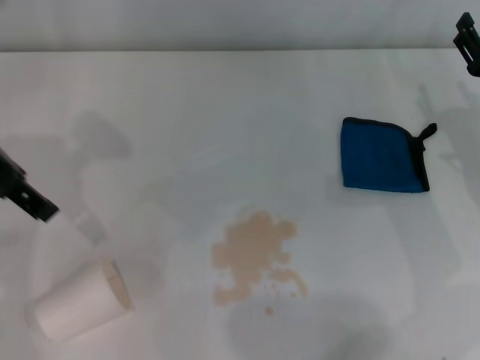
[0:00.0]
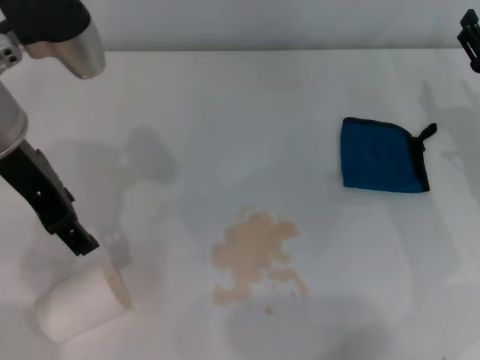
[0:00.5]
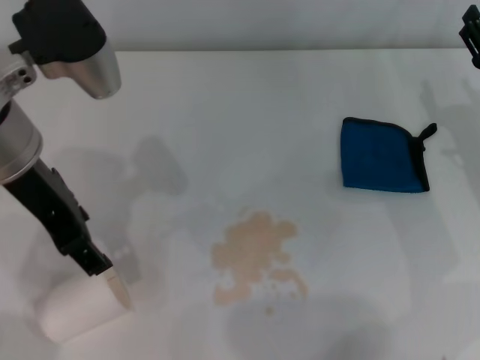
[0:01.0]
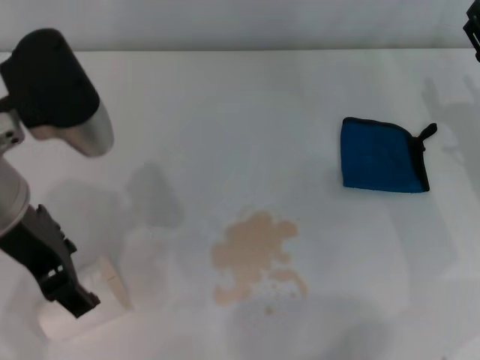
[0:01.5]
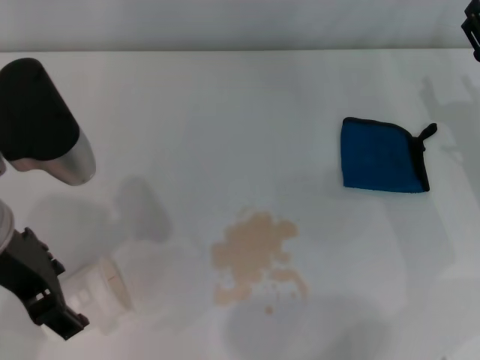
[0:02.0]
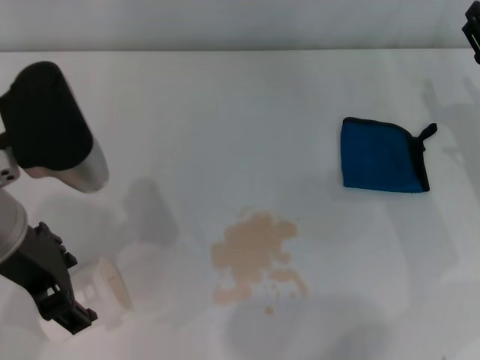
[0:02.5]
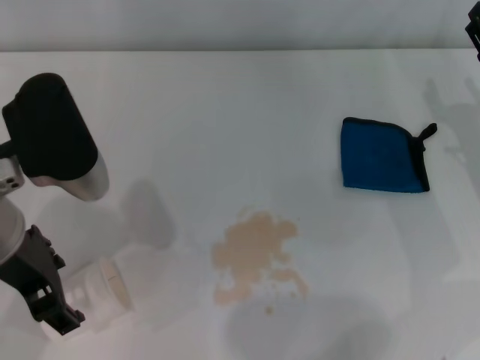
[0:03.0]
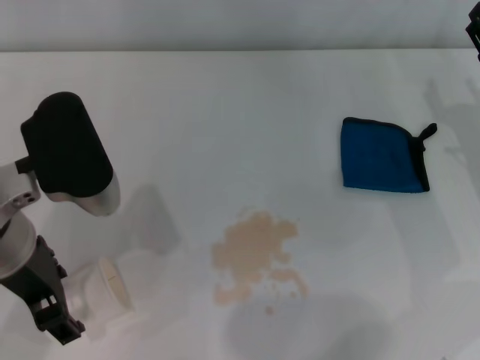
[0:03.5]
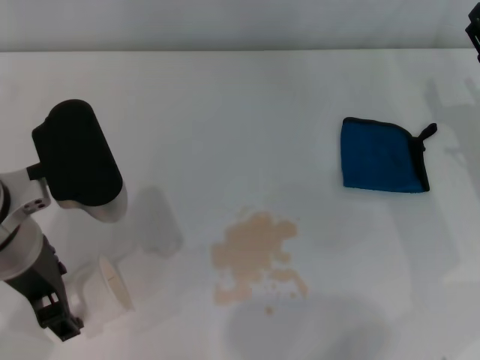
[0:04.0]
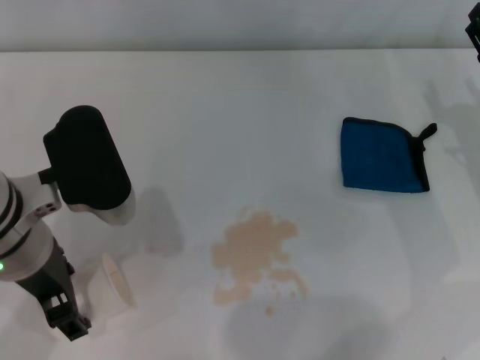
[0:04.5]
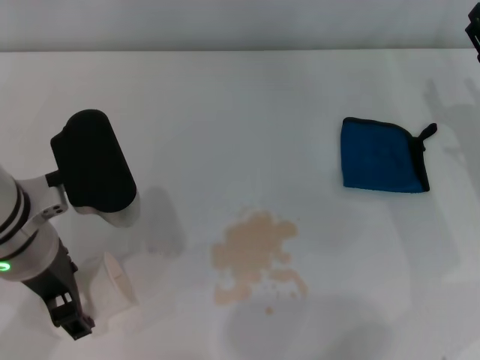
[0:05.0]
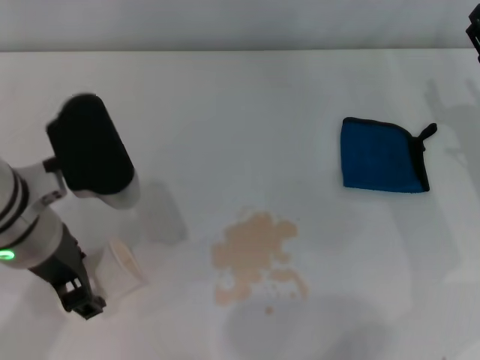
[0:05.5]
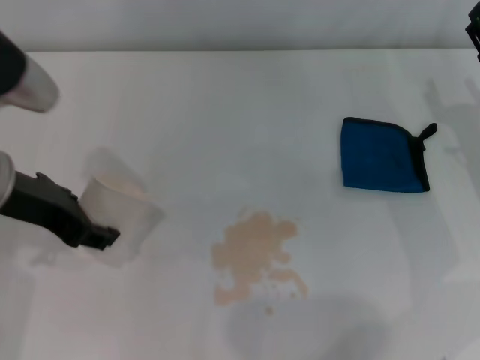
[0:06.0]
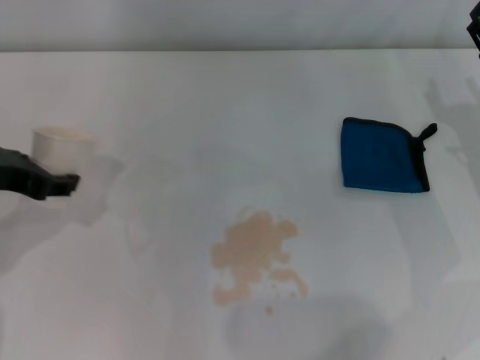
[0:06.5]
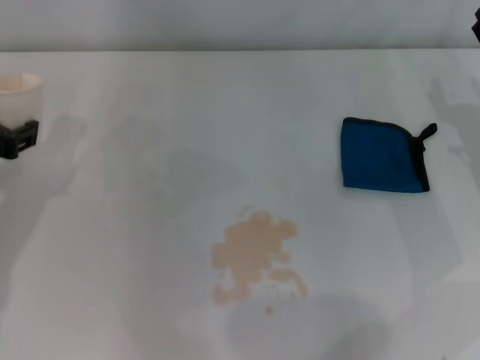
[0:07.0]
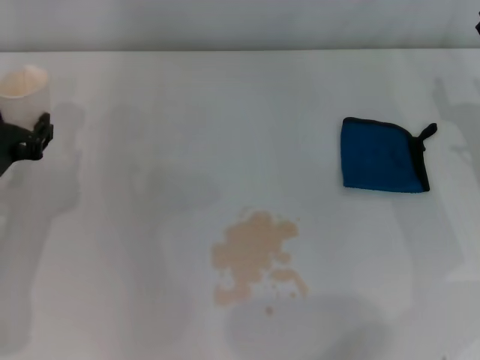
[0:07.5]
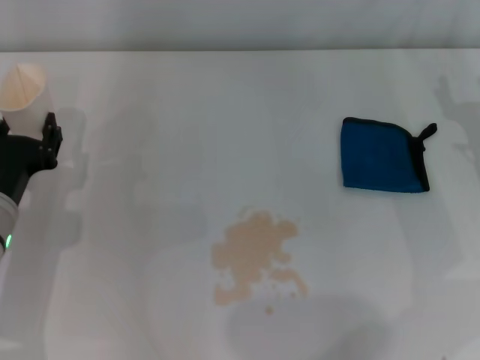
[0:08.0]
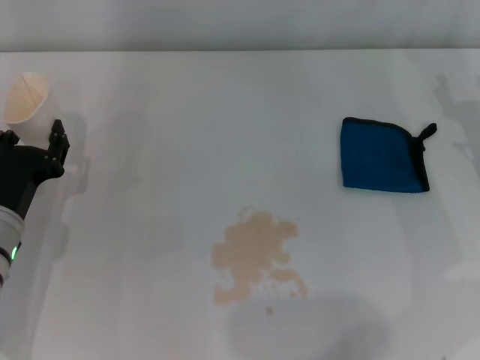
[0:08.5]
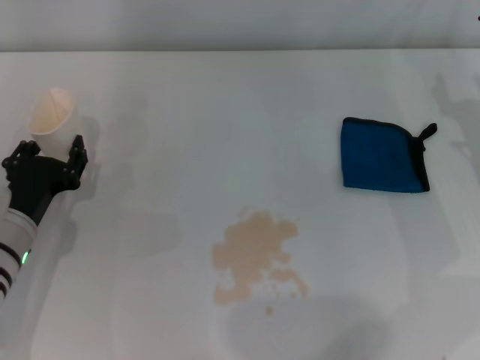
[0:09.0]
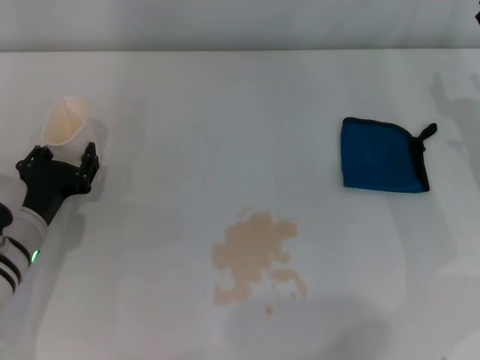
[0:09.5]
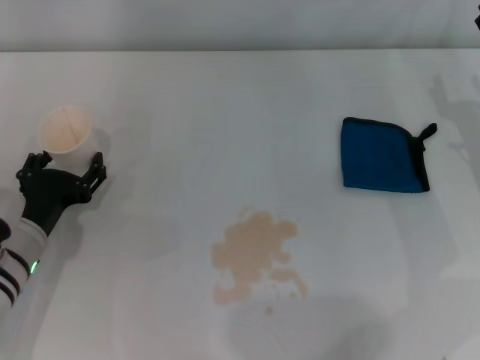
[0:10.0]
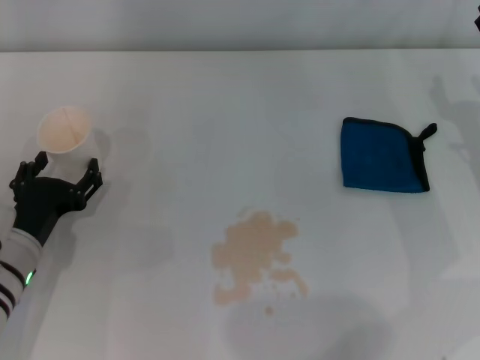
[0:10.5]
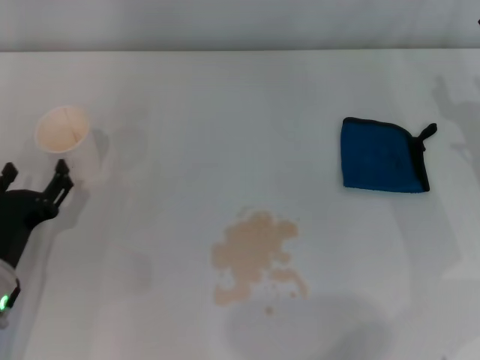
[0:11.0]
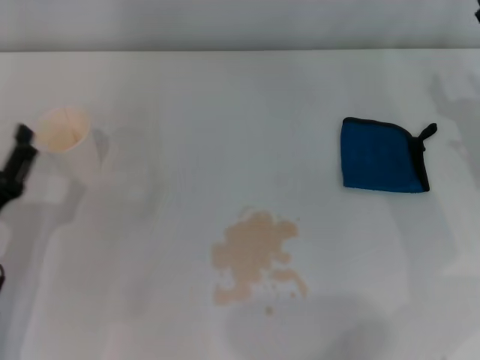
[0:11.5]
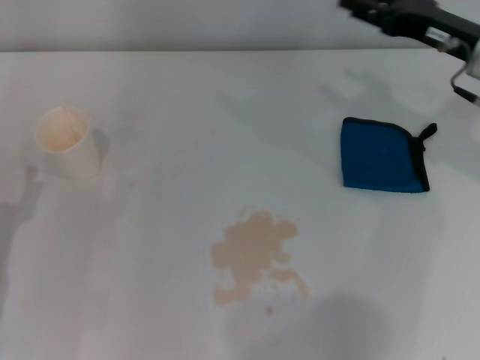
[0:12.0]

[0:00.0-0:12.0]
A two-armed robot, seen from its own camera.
Step, 0:00.0 to 0:04.5: Grasp the paper cup with the left gripper.
Step, 0:05.0 to 0:10.0: Stand the paper cup upright with the left gripper.
0:00.0 to 0:02.0: The left gripper is displaced backward and to the right by about 10 cm.
0:02.0 to 0:04.0: The grippers move only a little.
0:04.0 to 0:06.0: The left gripper shifts by roughly 5 cm, and closes its fingers.
0:06.0 to 0:08.0: The left gripper shifts approximately 15 cm downward.
0:08.0 to 0:10.0: There are only small adjustments of the grippers.
0:10.0 to 0:12.0: The right gripper moves upward and forward, roughly 10 cm, while the left gripper goes about 10 cm backward and to the left, and opens.

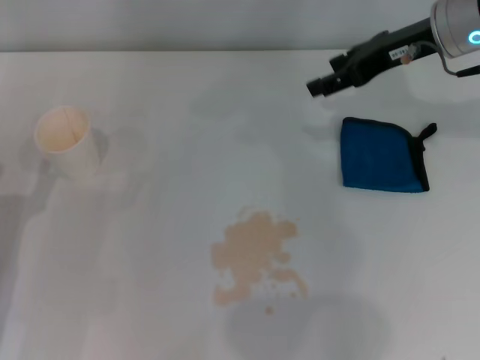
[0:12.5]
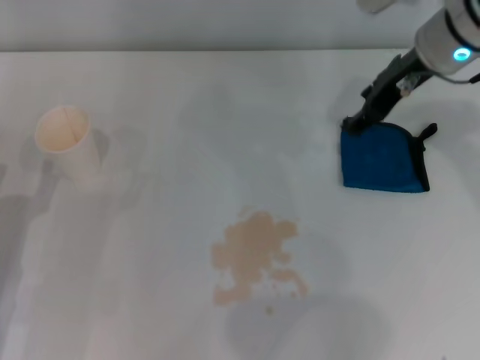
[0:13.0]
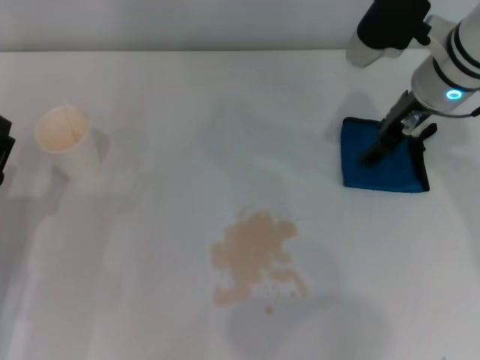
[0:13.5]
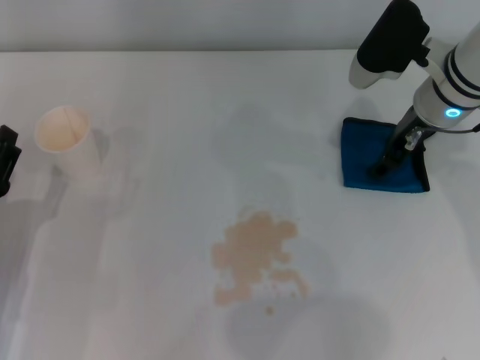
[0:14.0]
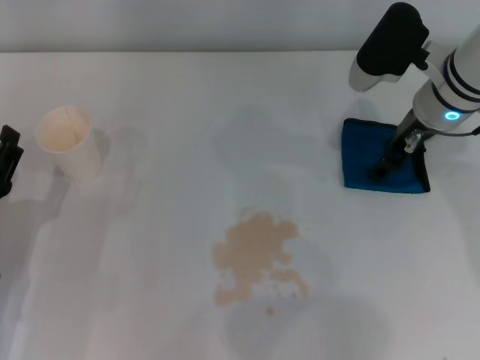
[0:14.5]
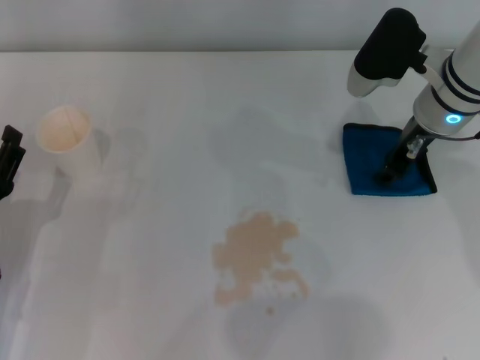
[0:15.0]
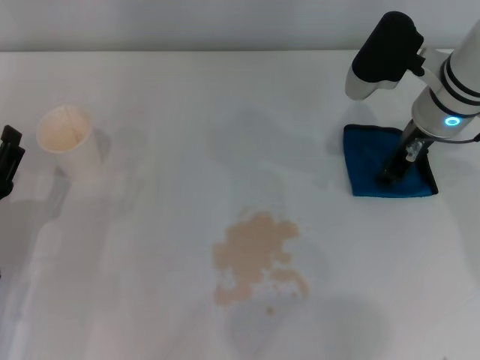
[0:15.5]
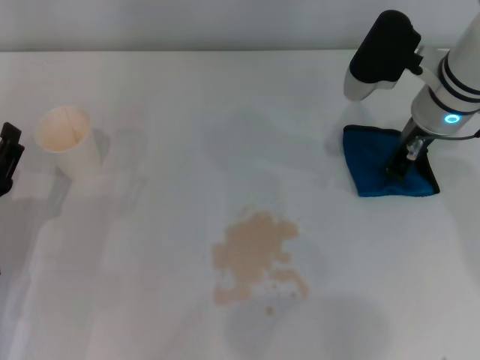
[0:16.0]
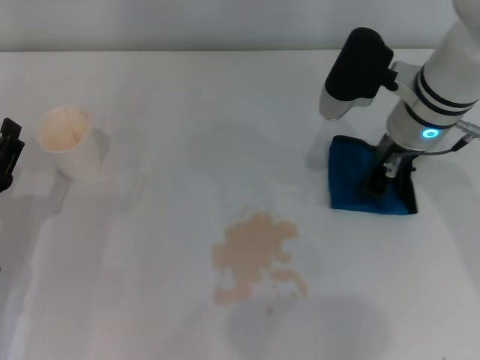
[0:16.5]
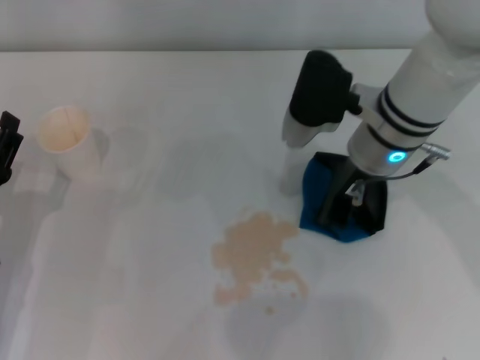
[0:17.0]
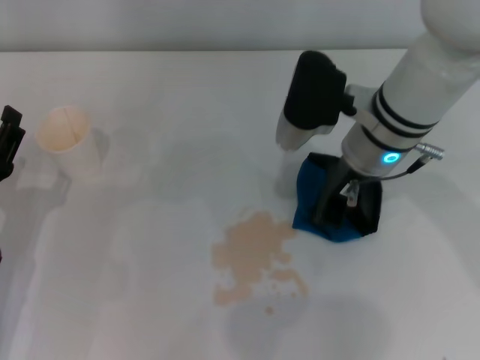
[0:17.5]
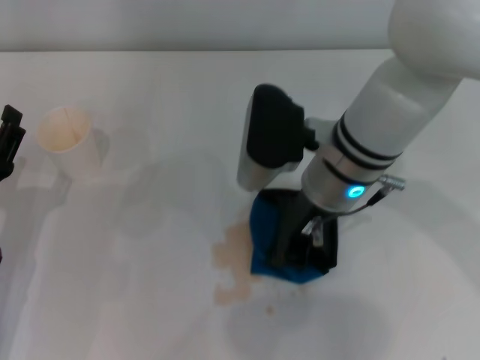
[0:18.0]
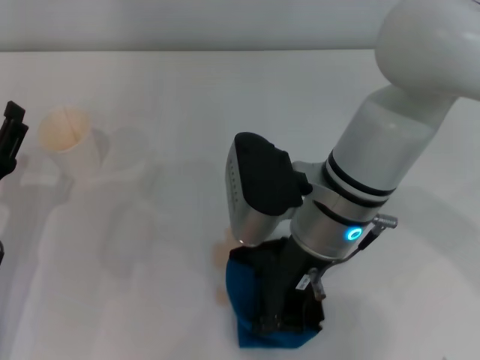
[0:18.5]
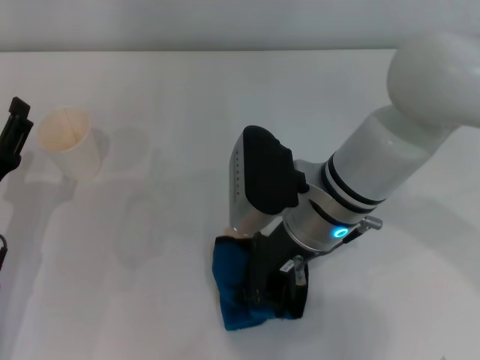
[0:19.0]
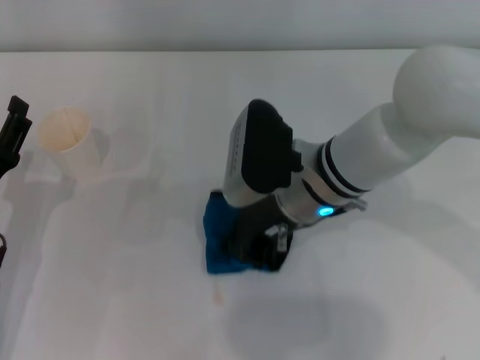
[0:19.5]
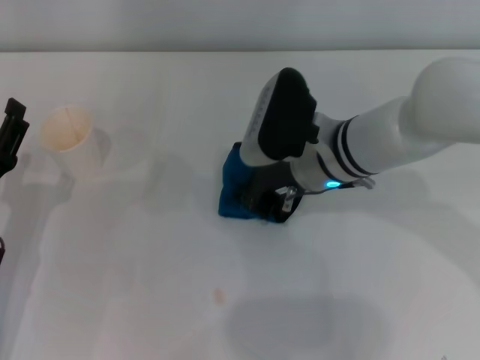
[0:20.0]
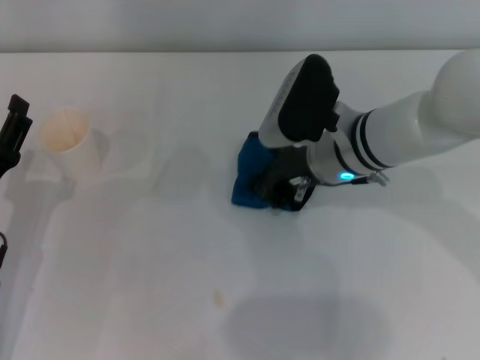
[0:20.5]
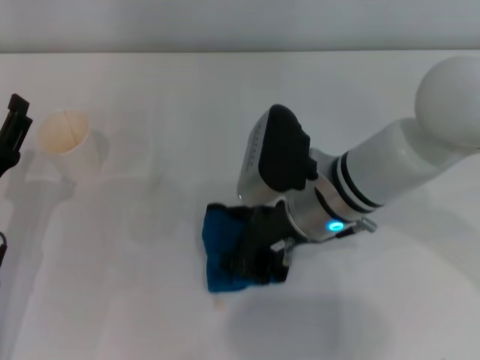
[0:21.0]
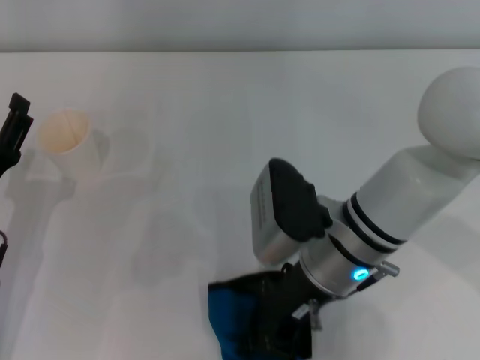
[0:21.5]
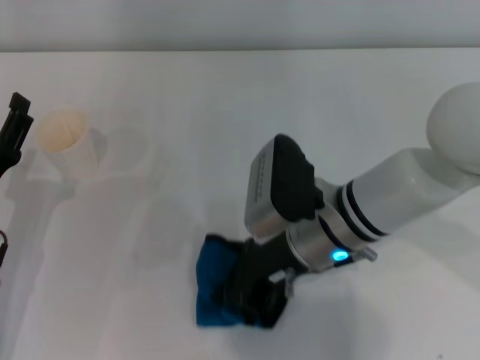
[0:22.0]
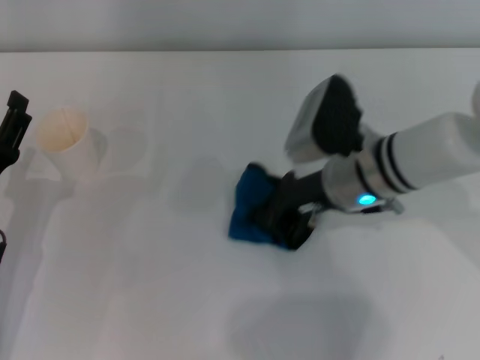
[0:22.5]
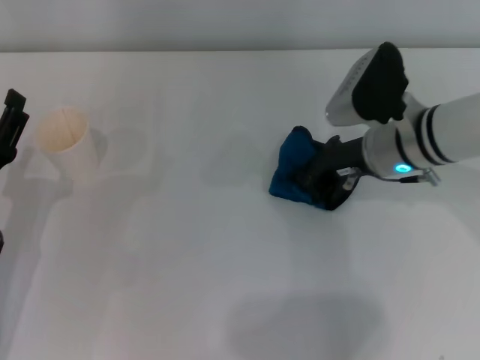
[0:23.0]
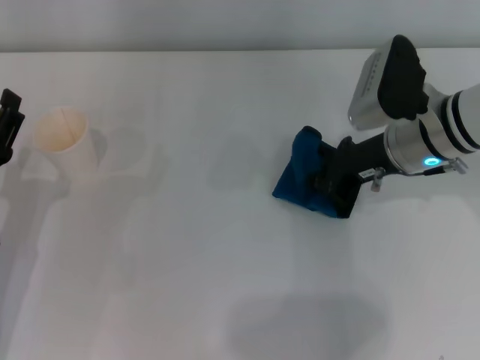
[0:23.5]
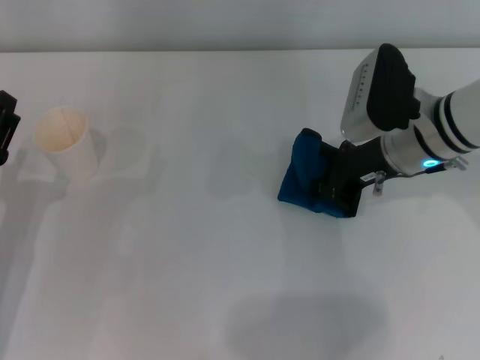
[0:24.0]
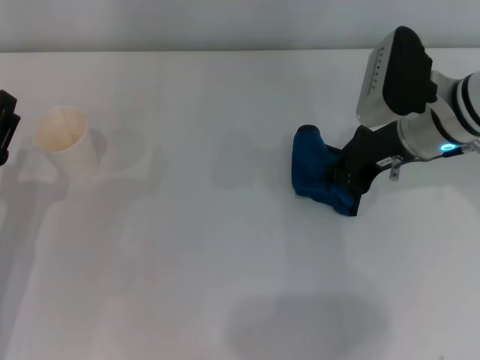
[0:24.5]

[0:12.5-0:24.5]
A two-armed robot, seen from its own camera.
Step, 0:12.5 to 0:15.0: Grasp the rag with the right gripper.
Step, 0:15.5 to 0:23.0: Wipe the stains off the table with the right gripper.
0:12.5 to 0:14.5: The right gripper is displaced downward by some 5 cm.
0:14.5 to 0:16.5: The right gripper closes its fingers.
0:16.5 to 0:18.5: The right gripper moves to the left and backward, approximately 15 cm.
0:18.5 to 0:20.5: The right gripper shifts approximately 5 cm forward.
0:20.5 to 0:22.5: The right gripper moves roughly 10 cm backward and comes back.
0:22.5 to 0:24.5: The right gripper is displaced to the right by approximately 5 cm.

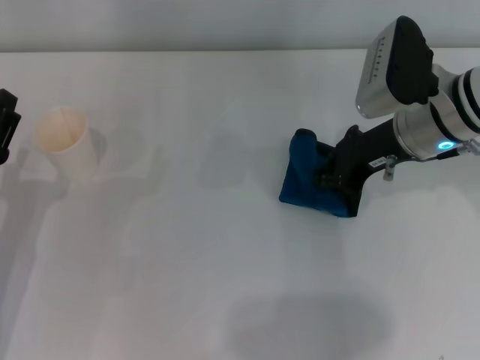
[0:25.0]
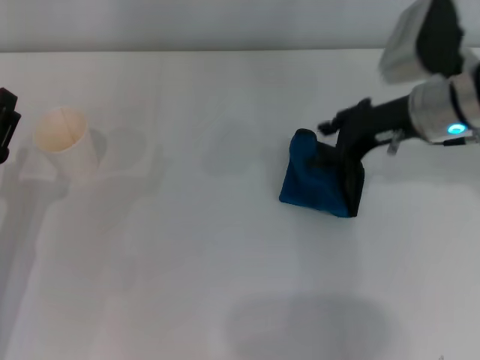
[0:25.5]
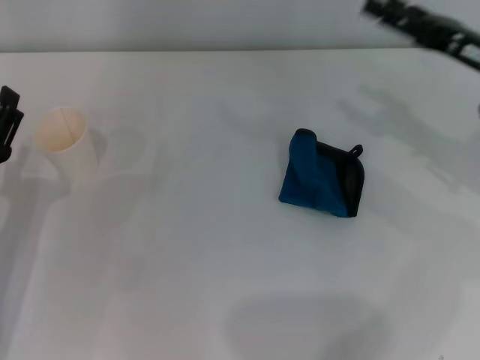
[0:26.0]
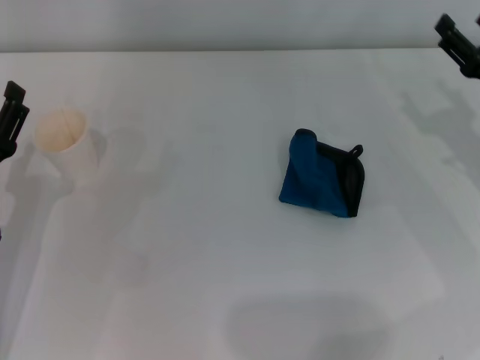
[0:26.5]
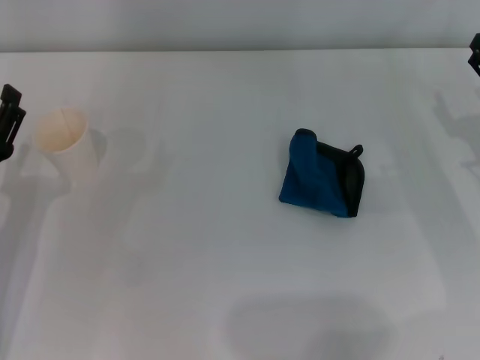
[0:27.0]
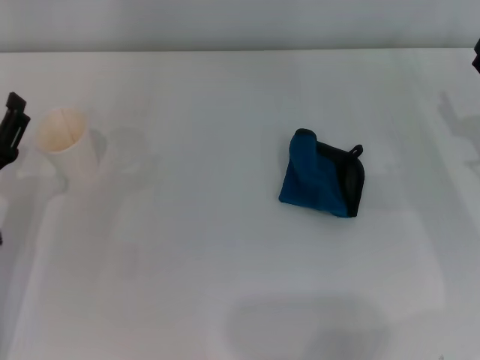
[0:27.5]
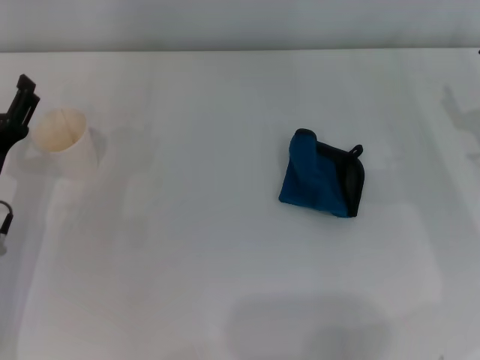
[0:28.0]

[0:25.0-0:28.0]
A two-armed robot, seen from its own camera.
0:25.0 to 0:26.5: The right gripper goes roughly 15 cm to the right and downward, and opens.
0:26.5 to 0:28.0: There are only small adjustments of the grippers.
